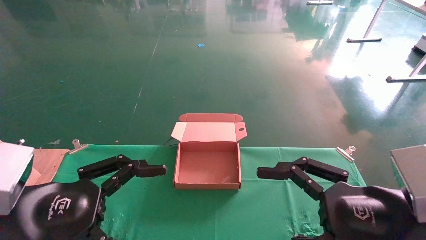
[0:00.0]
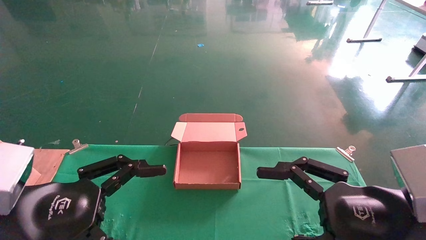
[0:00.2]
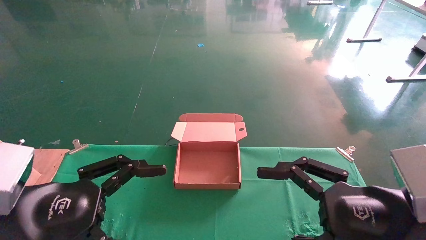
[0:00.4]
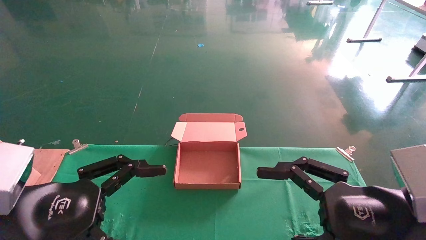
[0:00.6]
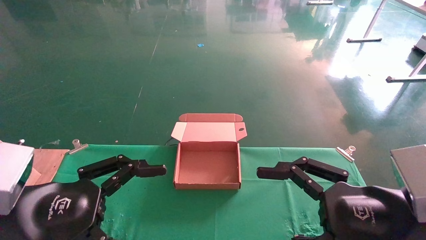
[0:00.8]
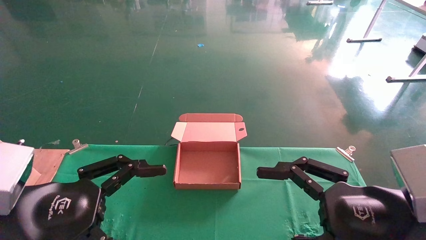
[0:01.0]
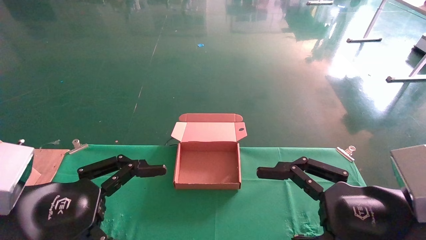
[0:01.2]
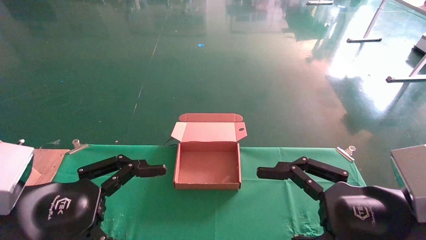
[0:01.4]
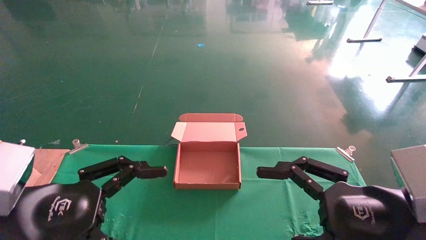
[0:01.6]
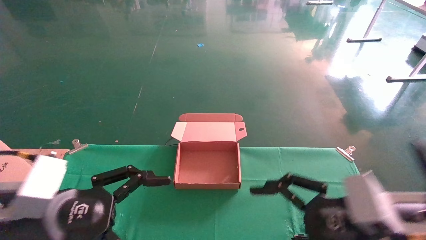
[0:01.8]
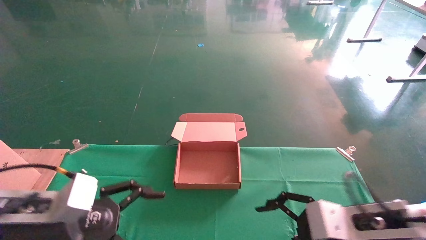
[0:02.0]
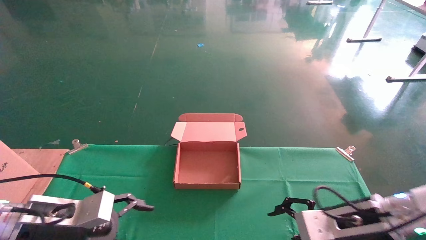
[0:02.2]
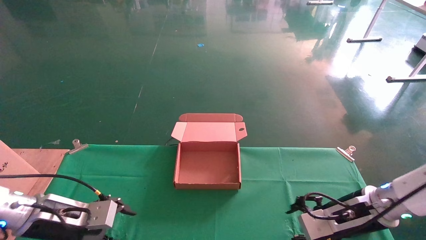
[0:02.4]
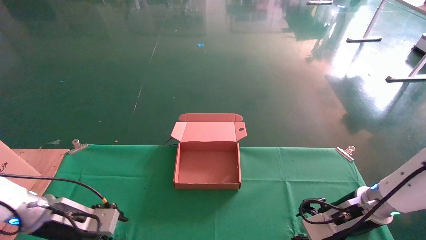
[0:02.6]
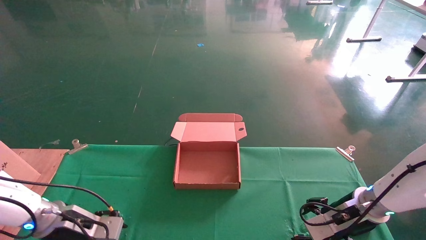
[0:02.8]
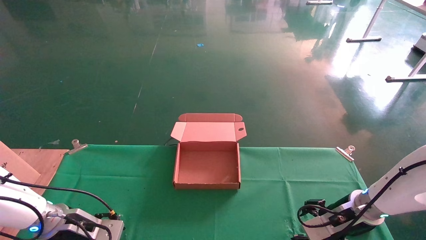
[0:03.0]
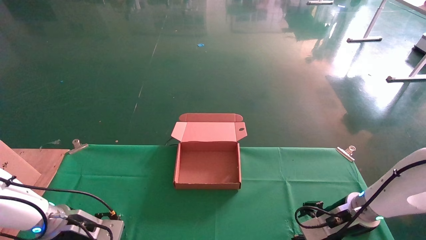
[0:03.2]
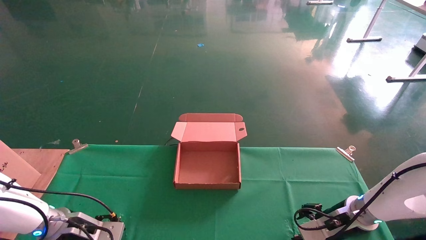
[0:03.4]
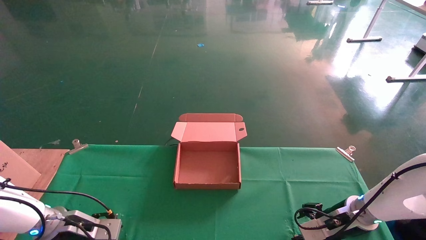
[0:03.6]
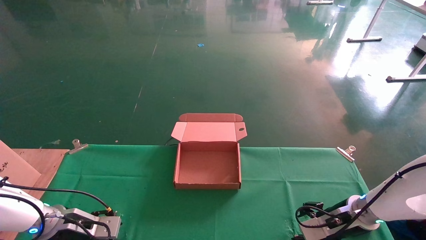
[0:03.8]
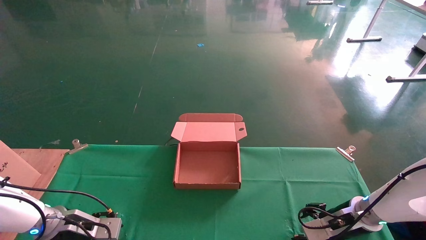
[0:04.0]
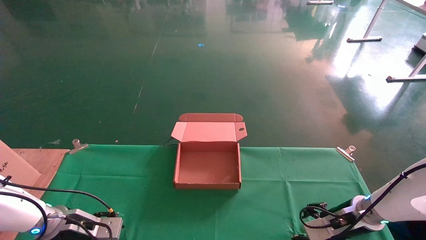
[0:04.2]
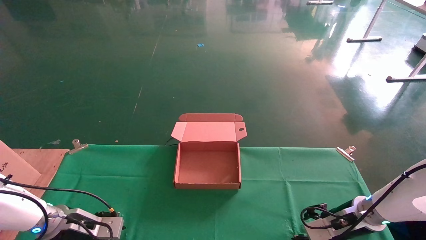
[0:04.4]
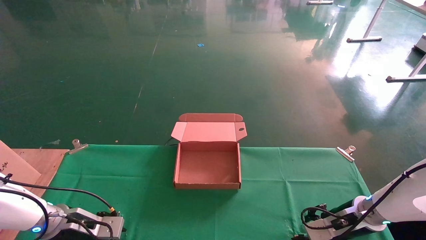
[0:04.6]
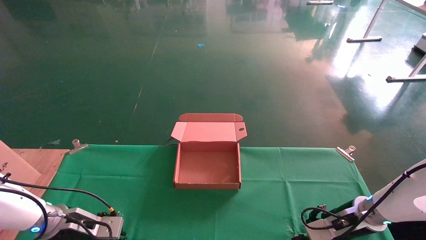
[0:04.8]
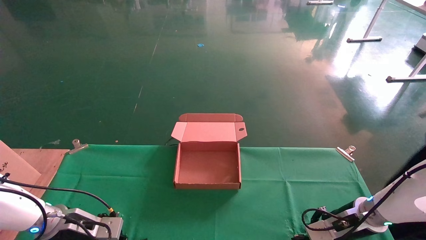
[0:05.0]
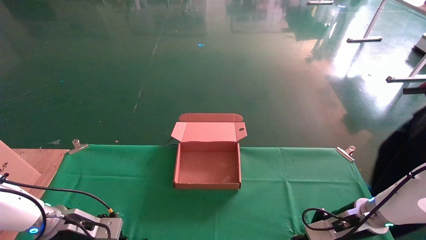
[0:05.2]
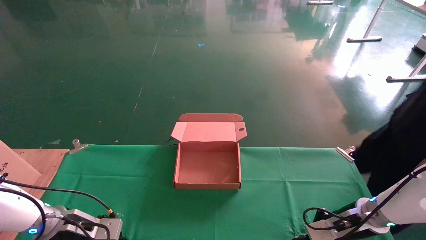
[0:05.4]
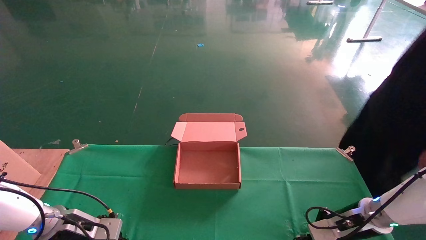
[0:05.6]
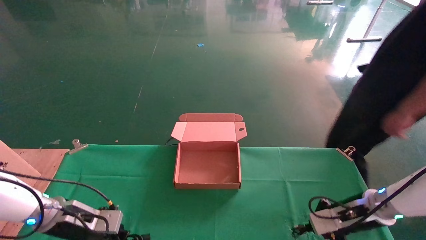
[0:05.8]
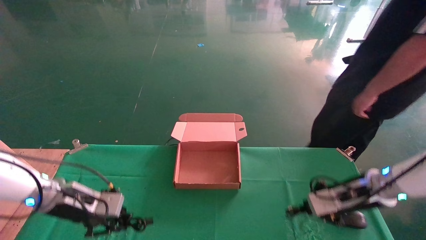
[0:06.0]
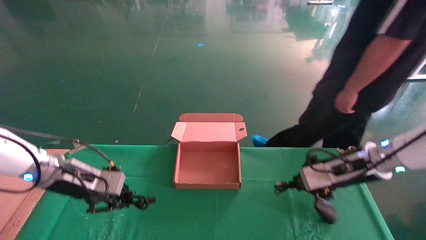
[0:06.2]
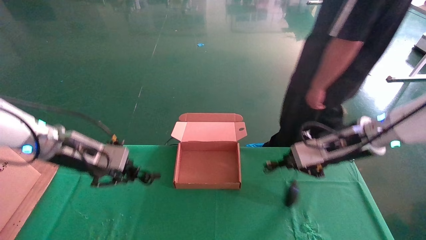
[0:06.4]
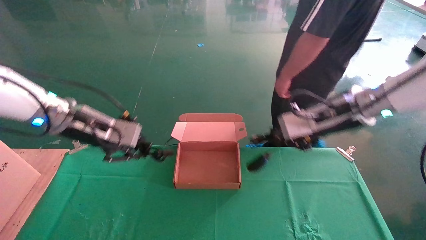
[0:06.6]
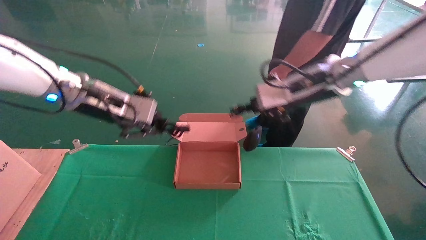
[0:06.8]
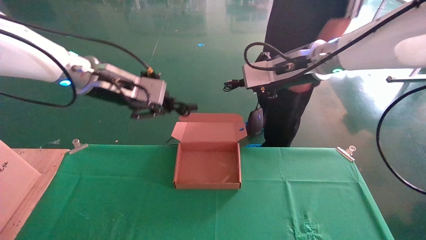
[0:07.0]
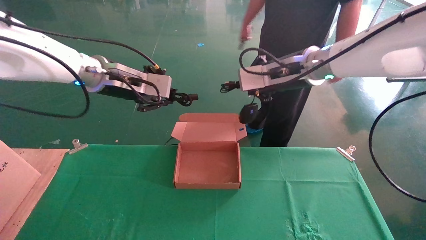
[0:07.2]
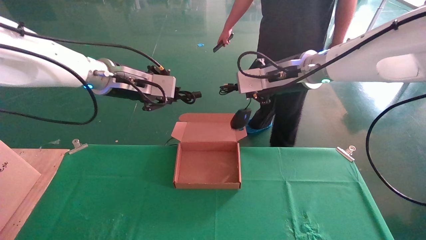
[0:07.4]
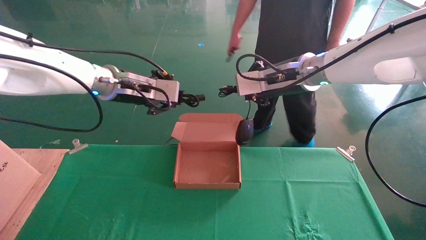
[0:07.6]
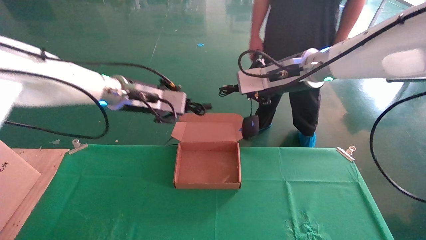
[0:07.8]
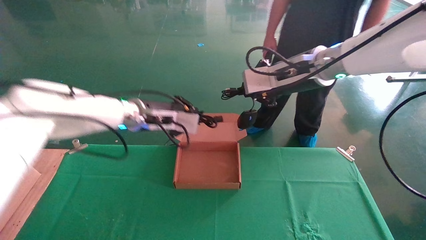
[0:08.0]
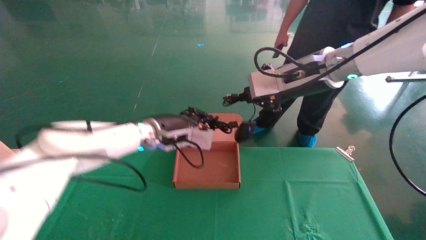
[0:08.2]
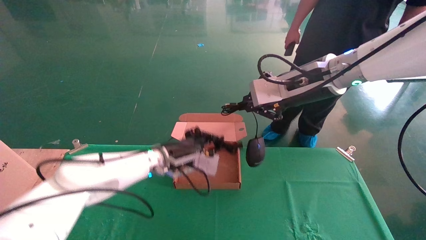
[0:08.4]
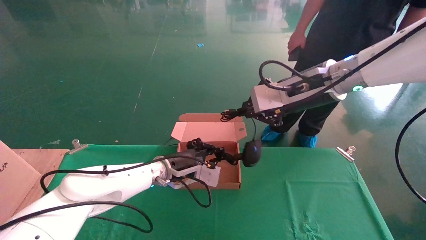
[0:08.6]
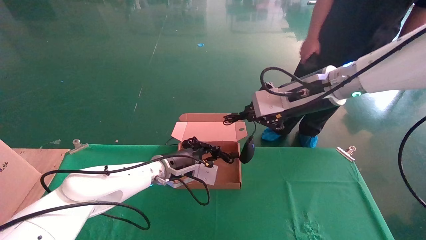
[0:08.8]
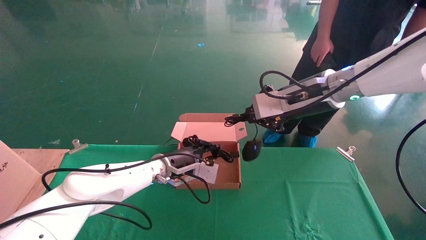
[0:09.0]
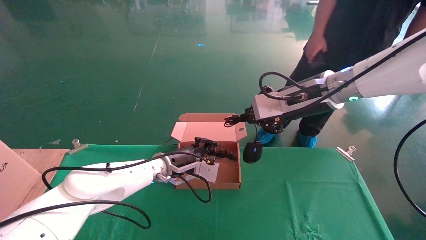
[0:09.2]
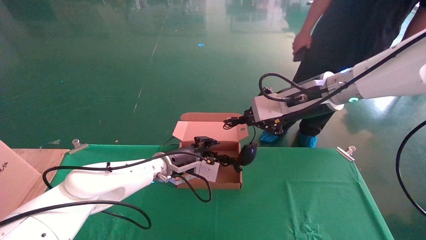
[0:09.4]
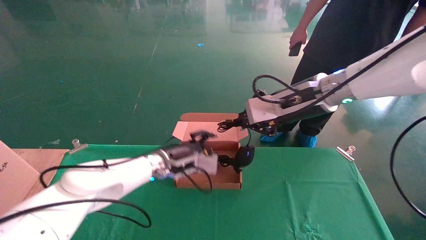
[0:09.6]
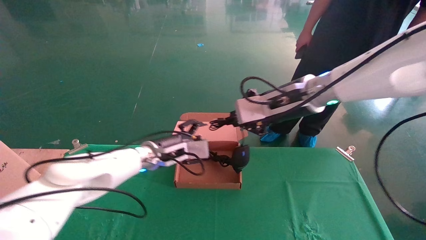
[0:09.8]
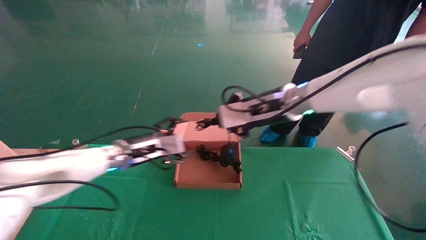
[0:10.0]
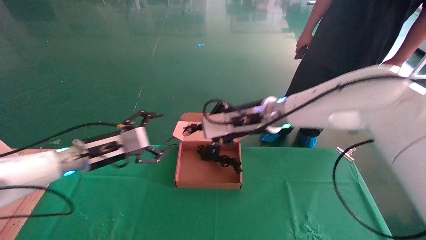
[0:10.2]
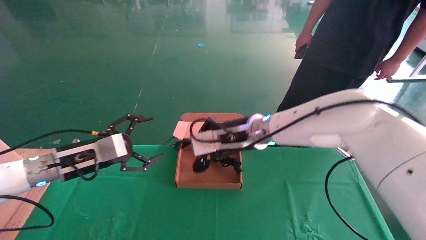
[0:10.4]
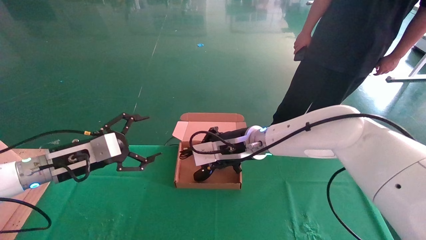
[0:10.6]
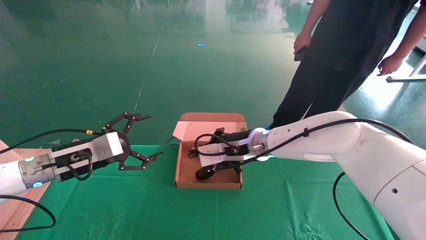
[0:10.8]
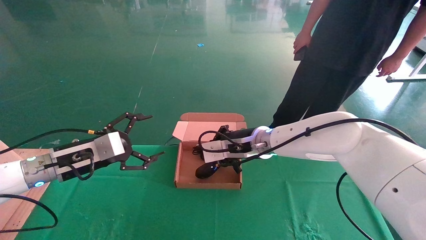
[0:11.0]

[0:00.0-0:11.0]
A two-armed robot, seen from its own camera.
Step, 0:02.4 to 0:06.4: Grab and lift both the mouse and power cord from the accessory packaging area at the same time.
0:00.0 to 0:01.6: The grippers stay close to where they were, moving slightly.
0:01.6 to 0:03.2: Both grippers travel together forward and downward, roughly 25 cm.
0:03.2 to 0:04.8: The right gripper closes up. Meanwhile the left gripper closes.
0:04.8 to 0:06.2: The two grippers go roughly 15 cm upward. The right gripper closes up. The left gripper closes its fingers.
0:06.2 to 0:07.8: The right gripper goes some 20 cm upward and to the left. Meanwhile the left gripper goes roughly 20 cm to the right, upward and forward.
0:07.8 to 0:09.4: The left gripper goes about 15 cm downward.
0:09.4 to 0:11.0: The left gripper is displaced to the left and backward by approximately 20 cm, and opens up; the right gripper heads downward, to the left and forward, covering approximately 15 cm.

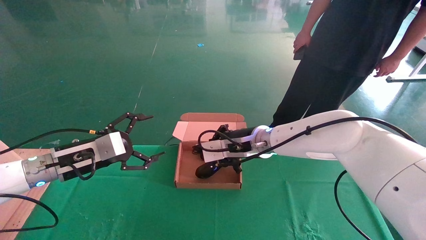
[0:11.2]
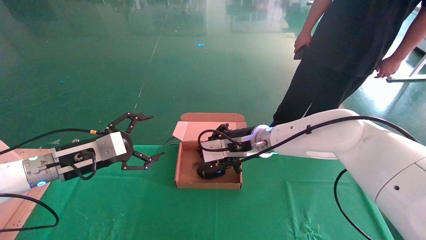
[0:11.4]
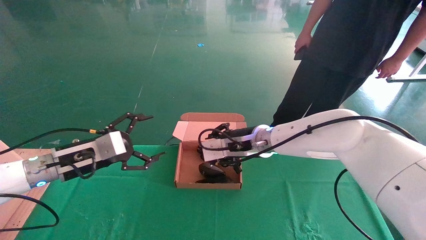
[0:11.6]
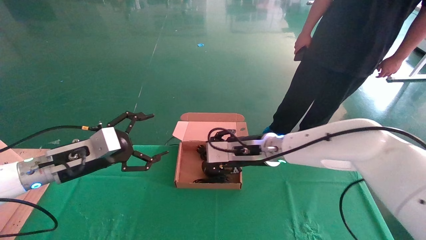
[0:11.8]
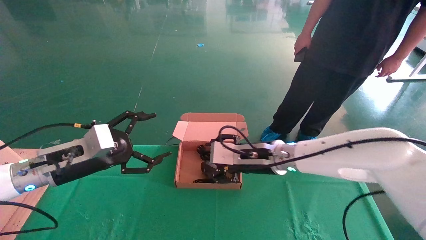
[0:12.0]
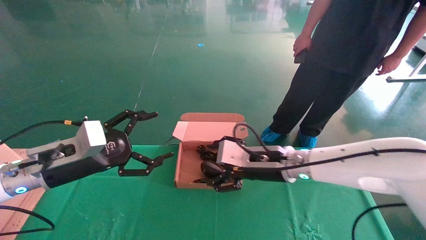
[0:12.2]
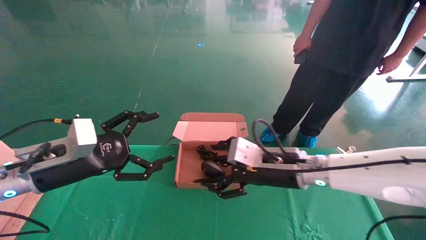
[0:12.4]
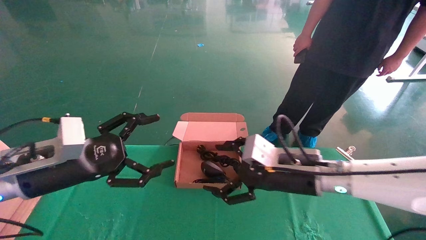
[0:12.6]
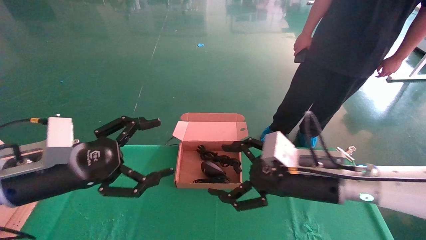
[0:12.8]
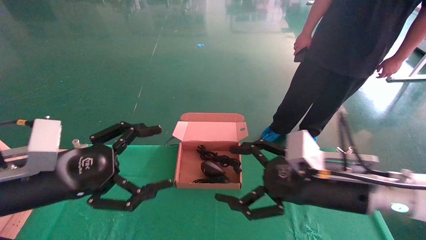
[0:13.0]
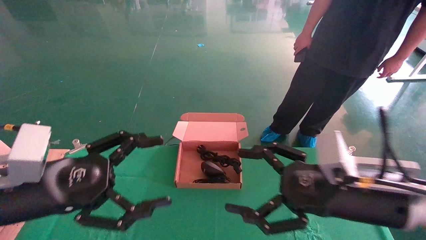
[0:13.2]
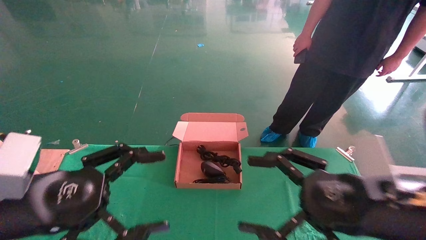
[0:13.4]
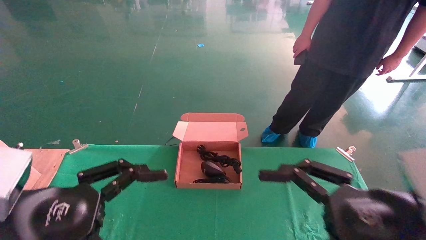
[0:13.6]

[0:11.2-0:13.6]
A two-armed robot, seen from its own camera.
0:11.2 to 0:12.4: The right gripper is displaced backward and to the right by about 10 cm, and opens its fingers. The left gripper moves backward, approximately 5 cm.
0:12.4 to 0:13.6: The left gripper is displaced backward by some 15 cm; the right gripper shifts roughly 20 cm backward and to the right.

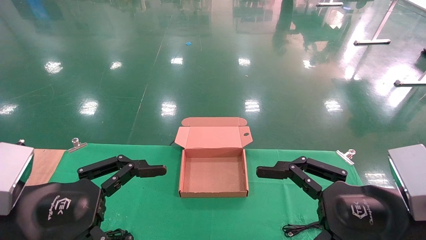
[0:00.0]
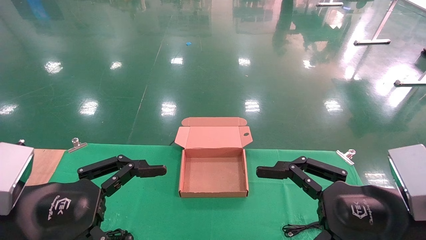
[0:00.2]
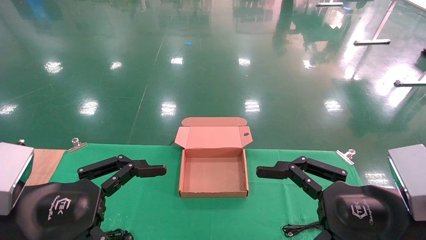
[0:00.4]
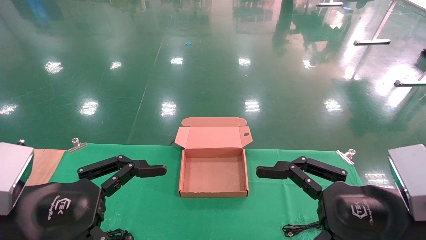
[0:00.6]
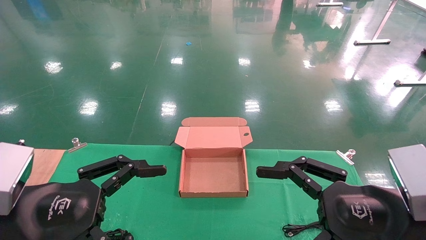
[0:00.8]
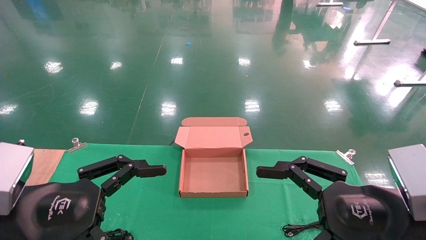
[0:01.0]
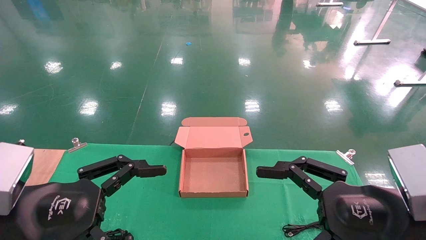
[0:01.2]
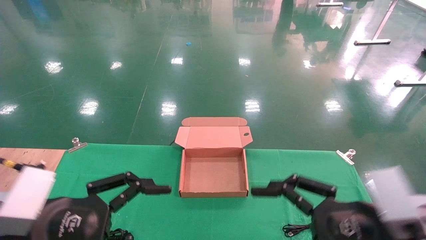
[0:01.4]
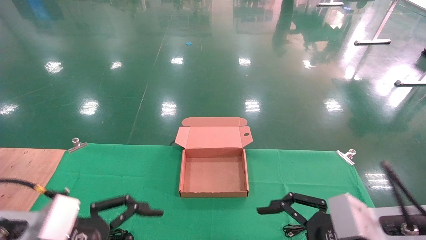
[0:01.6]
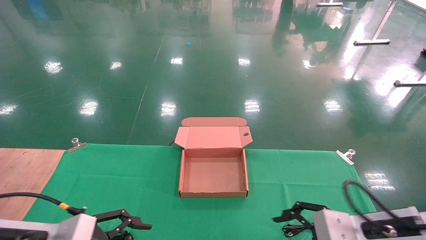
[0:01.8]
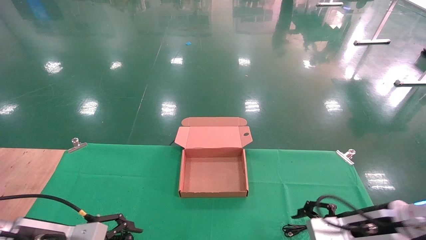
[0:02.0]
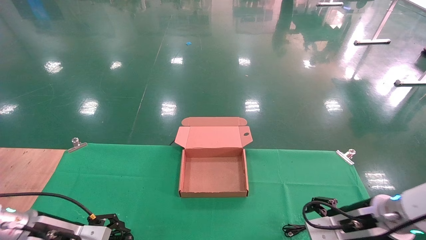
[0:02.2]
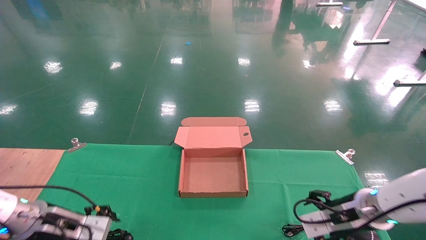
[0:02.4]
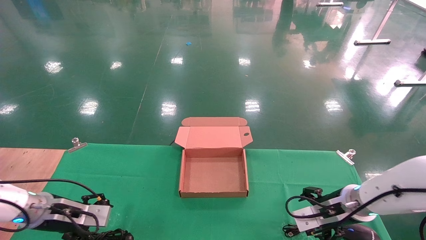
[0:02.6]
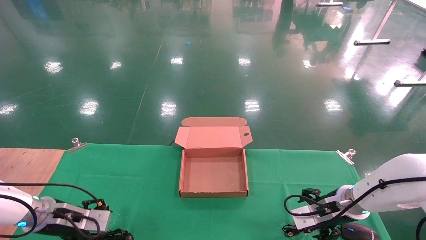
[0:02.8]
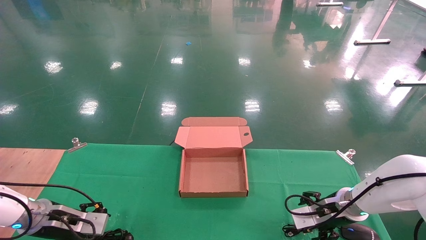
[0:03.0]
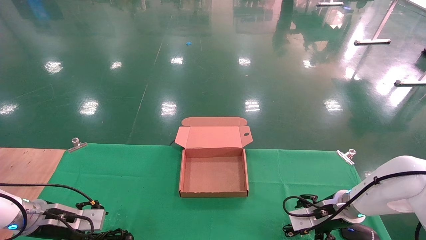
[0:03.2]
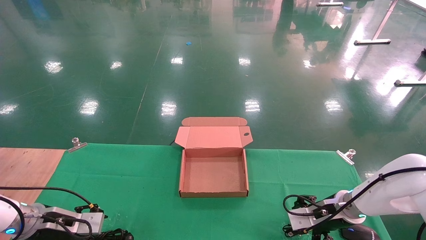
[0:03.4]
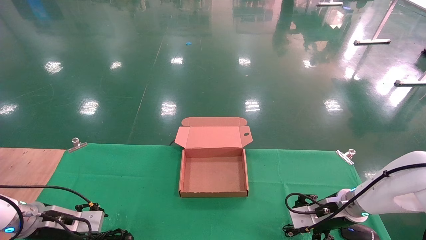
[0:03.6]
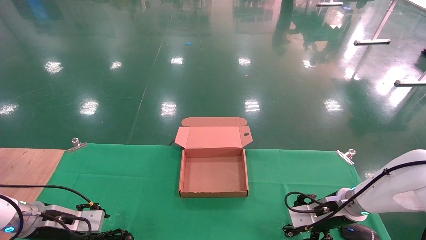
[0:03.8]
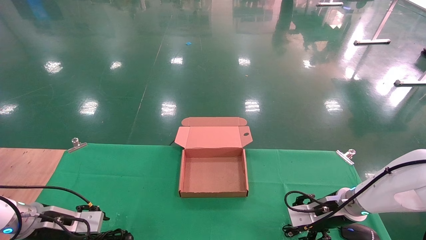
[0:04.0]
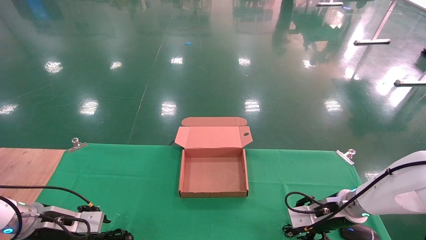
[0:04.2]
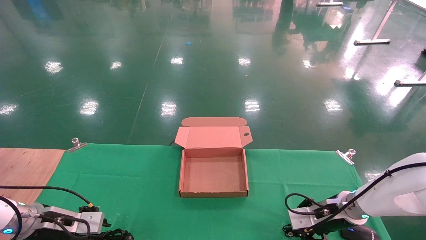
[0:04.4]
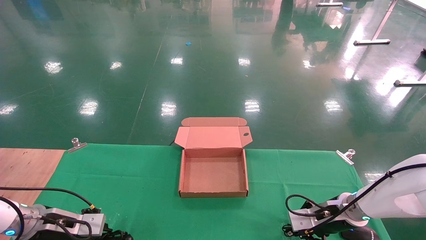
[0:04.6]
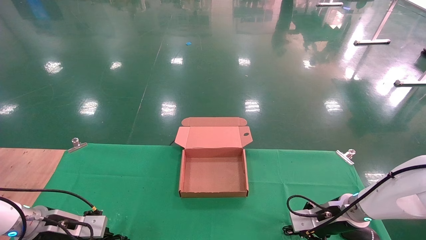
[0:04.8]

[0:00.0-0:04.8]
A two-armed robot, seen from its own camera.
0:00.0 to 0:01.6: The right gripper shifts by some 5 cm, while the left gripper shifts about 5 cm downward.
0:01.6 to 0:03.2: The left gripper shifts some 20 cm forward, downward and to the left. Meanwhile the right gripper heads forward and downward, covering roughly 20 cm.
0:03.2 to 0:04.8: The right gripper closes its fingers. The left gripper closes up.
